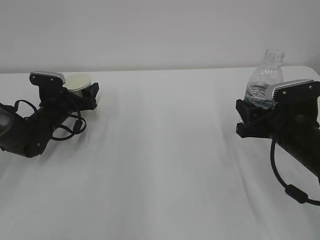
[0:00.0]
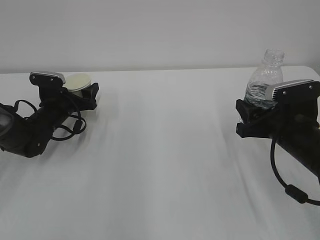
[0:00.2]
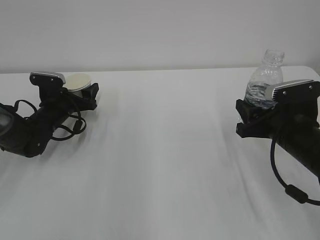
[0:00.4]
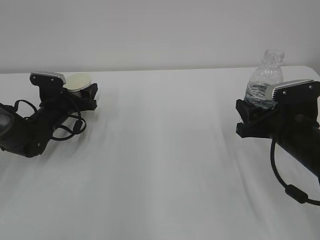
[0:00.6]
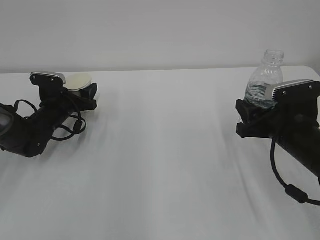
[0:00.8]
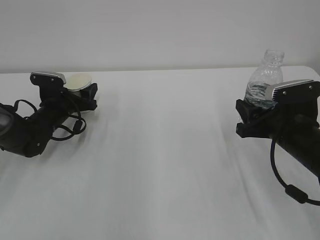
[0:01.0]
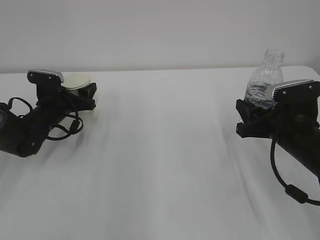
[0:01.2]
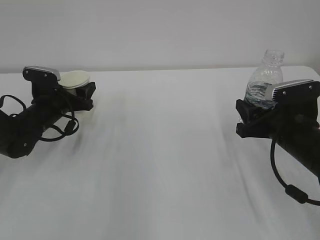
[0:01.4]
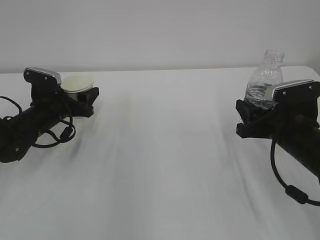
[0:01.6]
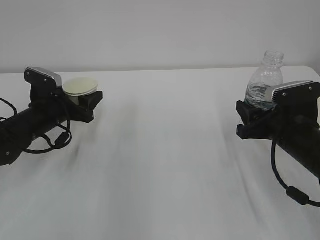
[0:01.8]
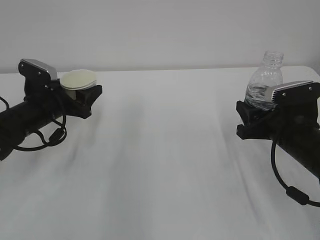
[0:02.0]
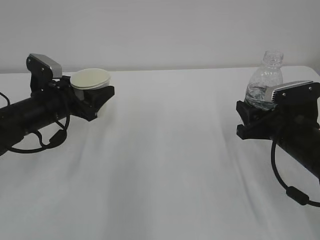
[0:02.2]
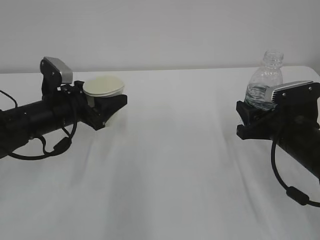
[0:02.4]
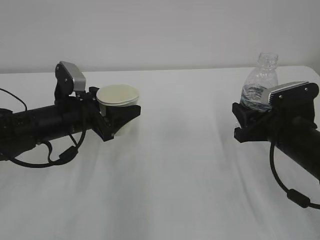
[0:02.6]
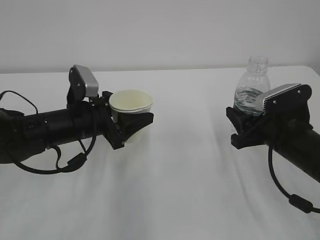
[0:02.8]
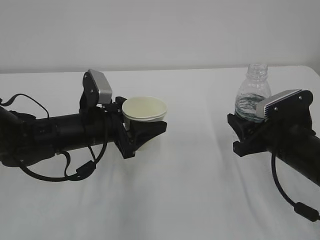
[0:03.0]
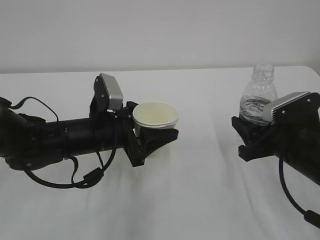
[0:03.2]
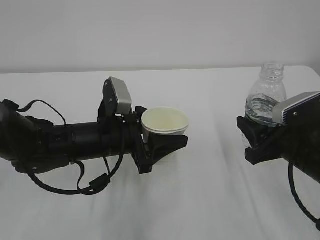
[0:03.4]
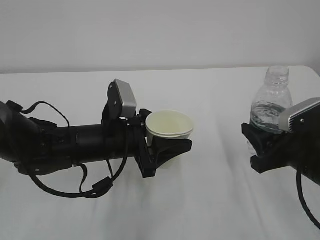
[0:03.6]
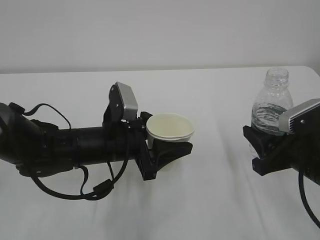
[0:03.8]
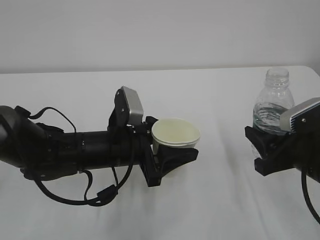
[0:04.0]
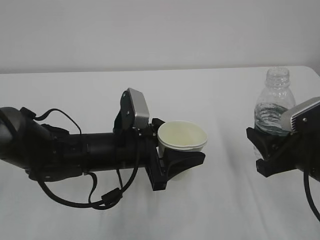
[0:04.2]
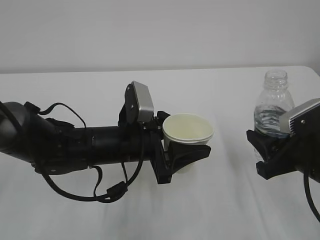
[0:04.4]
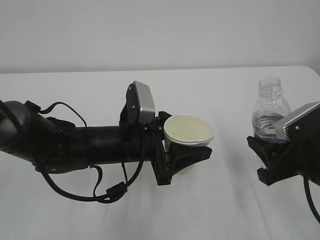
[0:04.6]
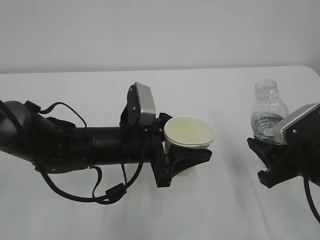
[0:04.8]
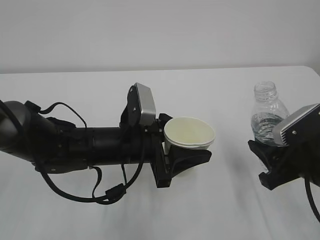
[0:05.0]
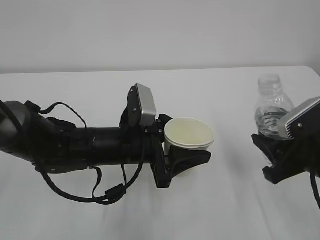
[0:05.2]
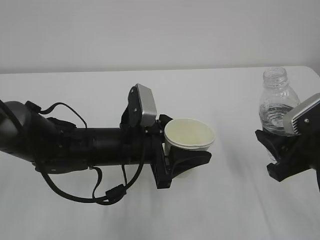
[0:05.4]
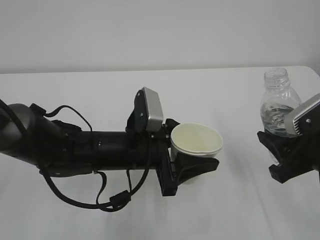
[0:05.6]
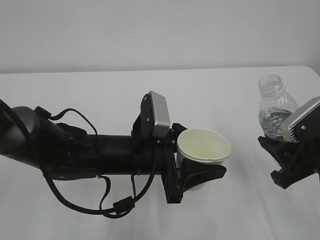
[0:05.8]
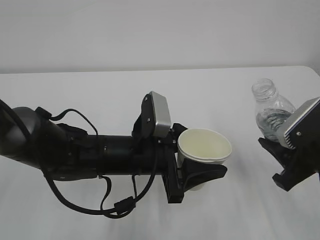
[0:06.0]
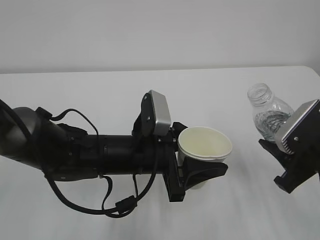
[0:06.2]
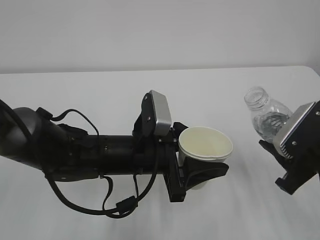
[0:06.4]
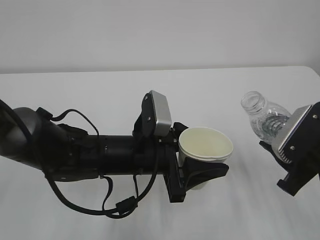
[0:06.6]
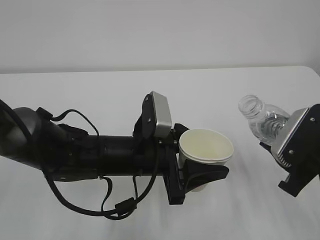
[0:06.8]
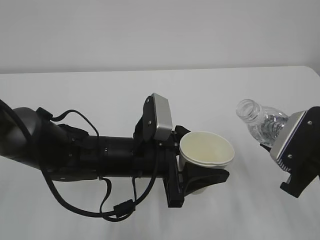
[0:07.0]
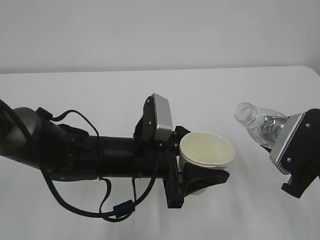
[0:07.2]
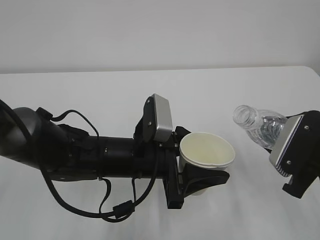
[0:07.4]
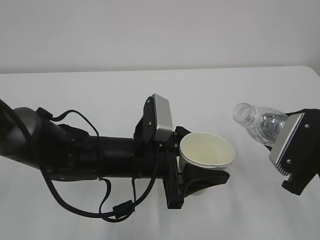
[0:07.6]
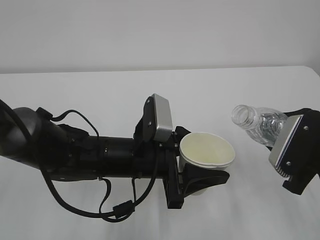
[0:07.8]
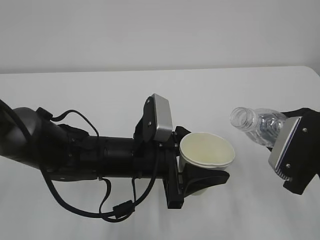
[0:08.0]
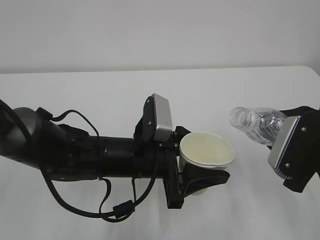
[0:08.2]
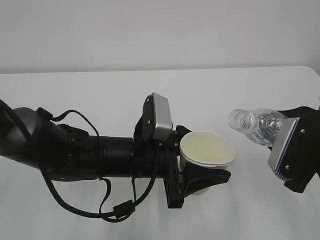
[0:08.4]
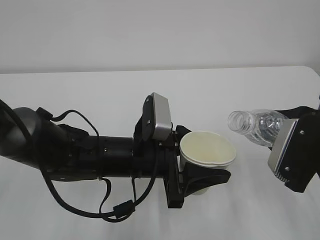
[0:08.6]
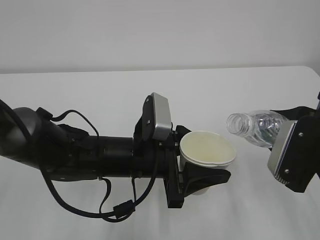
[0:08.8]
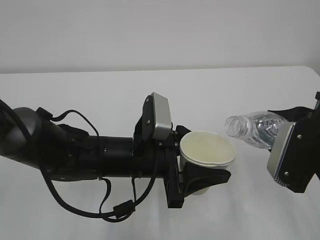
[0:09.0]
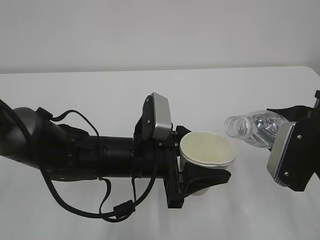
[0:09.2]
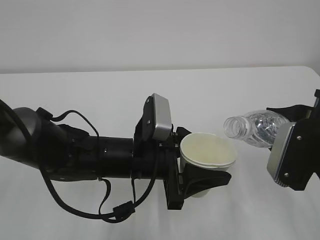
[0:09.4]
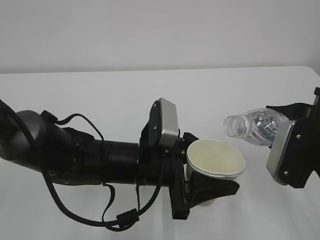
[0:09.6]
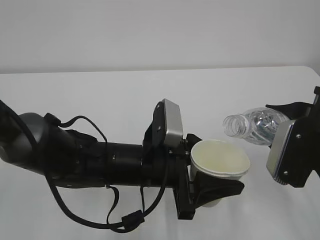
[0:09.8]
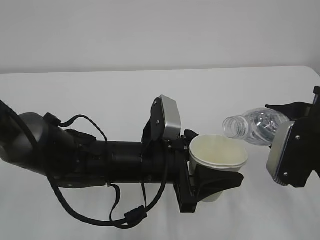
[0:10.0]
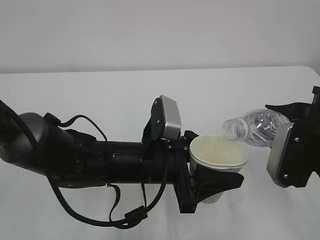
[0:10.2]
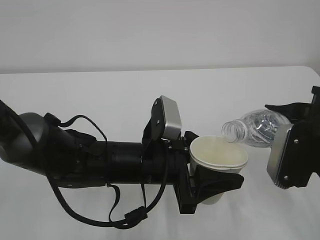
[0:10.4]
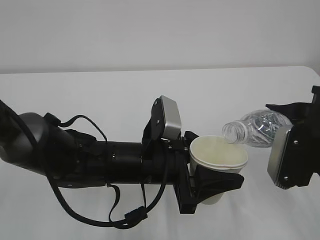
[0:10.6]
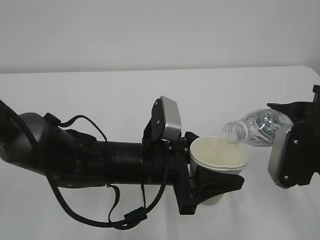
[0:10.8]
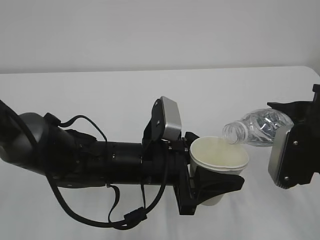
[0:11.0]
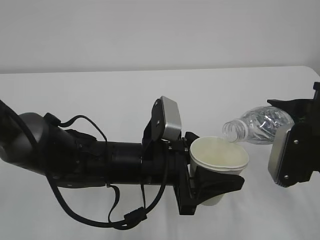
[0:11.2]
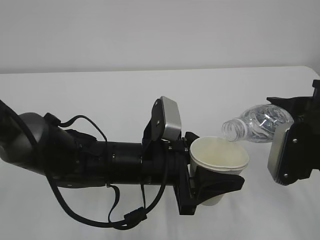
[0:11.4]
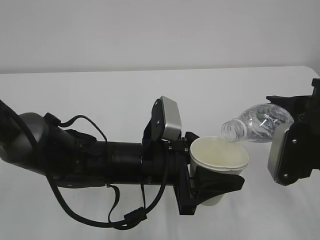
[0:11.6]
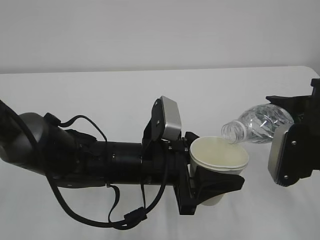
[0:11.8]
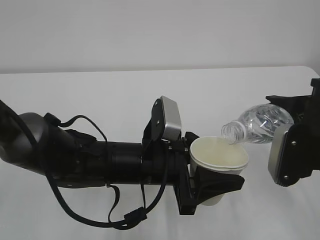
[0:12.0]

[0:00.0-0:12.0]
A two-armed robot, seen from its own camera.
0:00.0 to 0:01.6: The left gripper moves about 5 cm, and closes up.
0:01.6 to 0:03.0: The left gripper goes some 15 cm to the right and backward.
0:03.0 to 0:04.4: The right gripper moves backward, some 5 cm; the left gripper heads to the right, covering some 5 cm.
0:04.4 to 0:06.0: The grippers make only small movements.
0:07.6 to 0:09.0: The grippers stay close to where they were, moving slightly.
0:09.0 to 0:12.0: The grippers make only small movements.

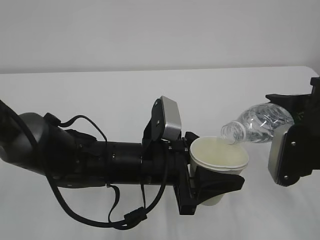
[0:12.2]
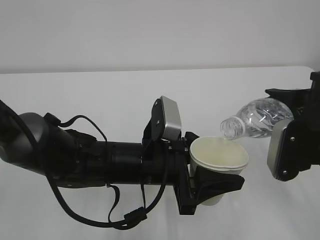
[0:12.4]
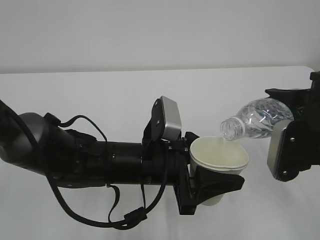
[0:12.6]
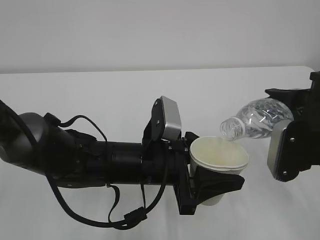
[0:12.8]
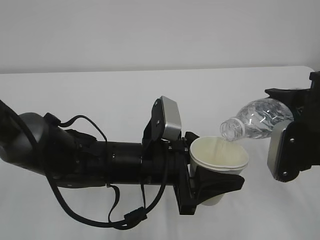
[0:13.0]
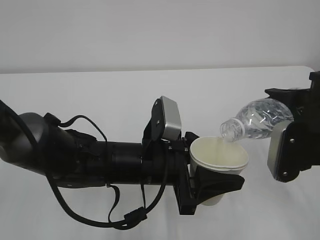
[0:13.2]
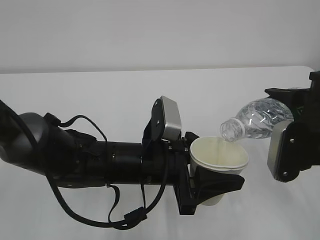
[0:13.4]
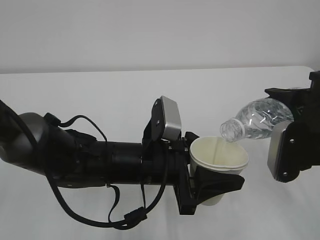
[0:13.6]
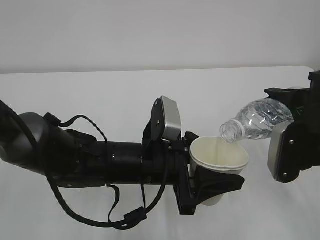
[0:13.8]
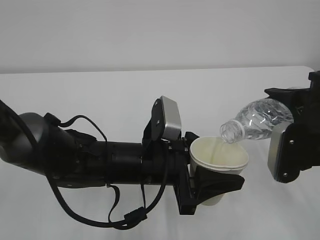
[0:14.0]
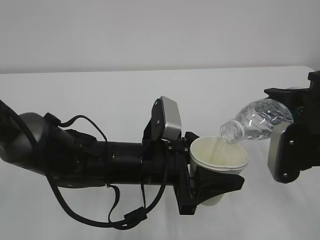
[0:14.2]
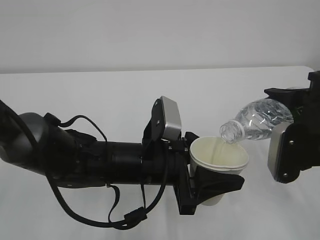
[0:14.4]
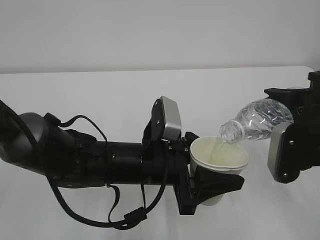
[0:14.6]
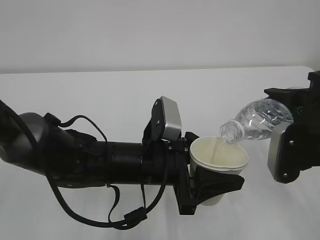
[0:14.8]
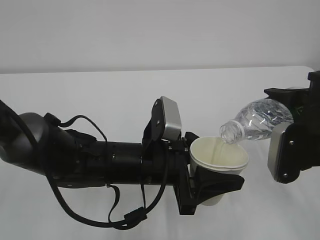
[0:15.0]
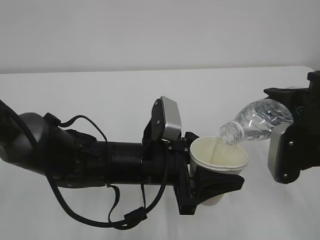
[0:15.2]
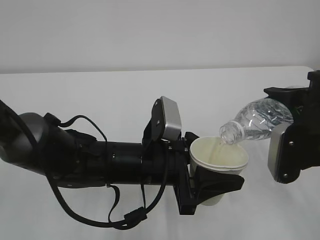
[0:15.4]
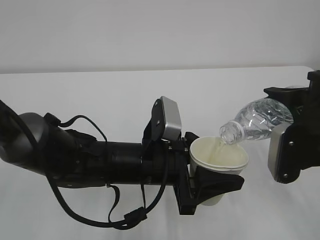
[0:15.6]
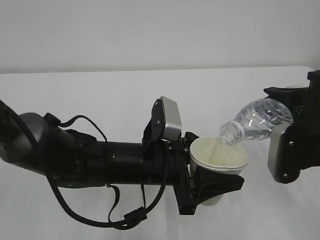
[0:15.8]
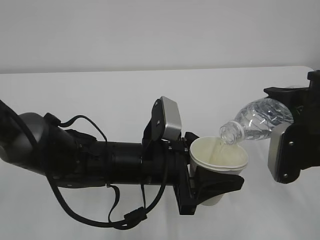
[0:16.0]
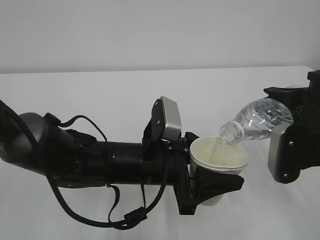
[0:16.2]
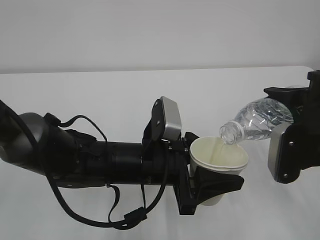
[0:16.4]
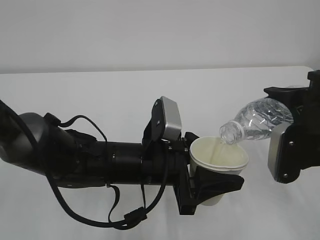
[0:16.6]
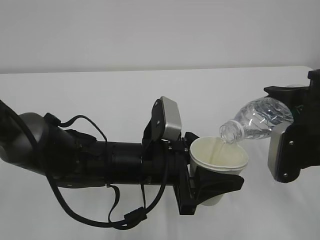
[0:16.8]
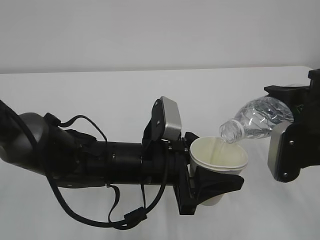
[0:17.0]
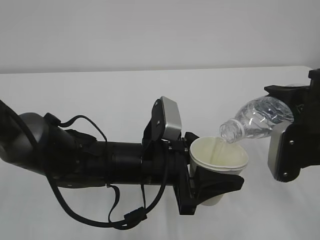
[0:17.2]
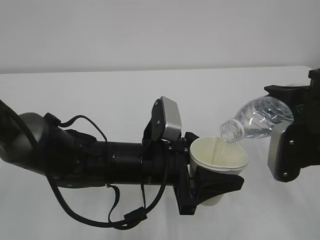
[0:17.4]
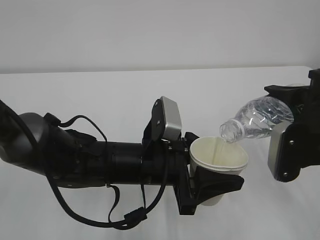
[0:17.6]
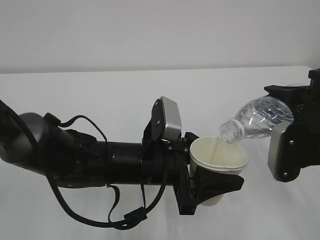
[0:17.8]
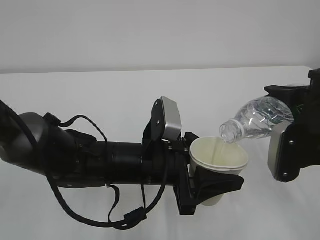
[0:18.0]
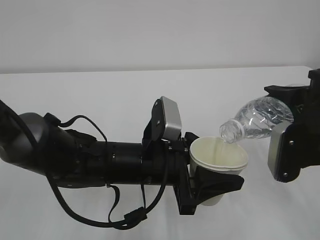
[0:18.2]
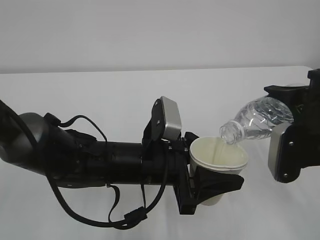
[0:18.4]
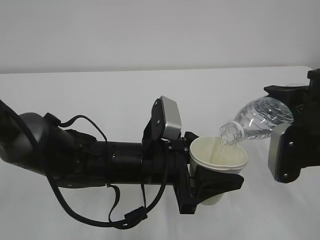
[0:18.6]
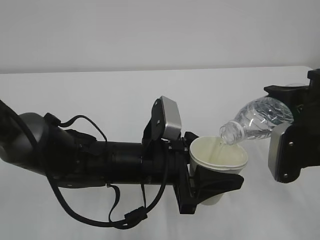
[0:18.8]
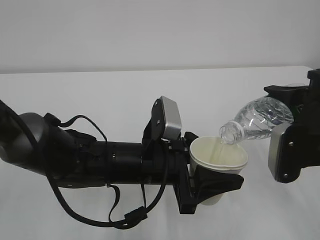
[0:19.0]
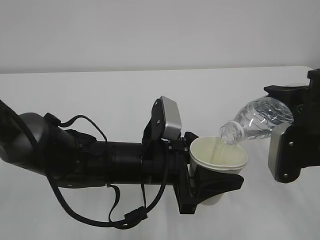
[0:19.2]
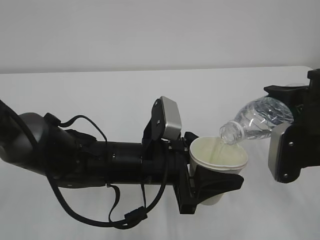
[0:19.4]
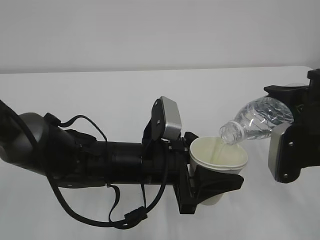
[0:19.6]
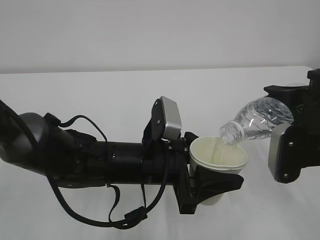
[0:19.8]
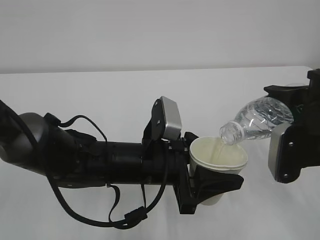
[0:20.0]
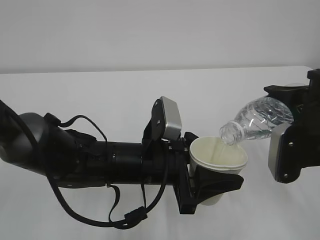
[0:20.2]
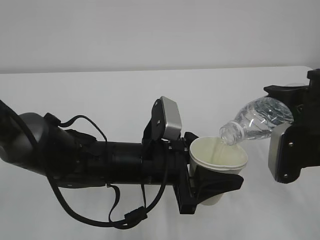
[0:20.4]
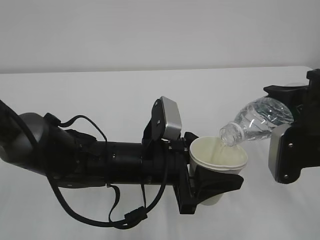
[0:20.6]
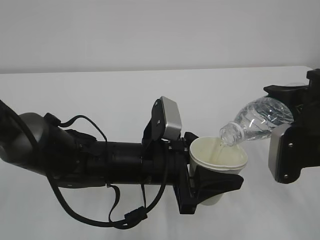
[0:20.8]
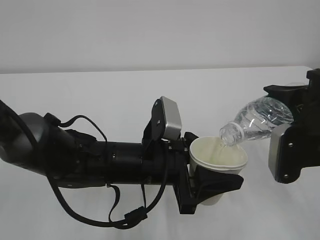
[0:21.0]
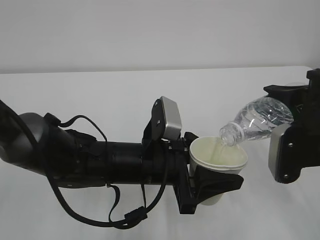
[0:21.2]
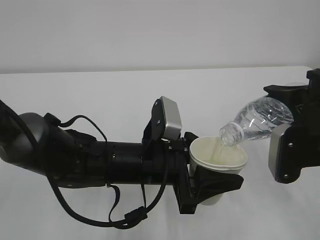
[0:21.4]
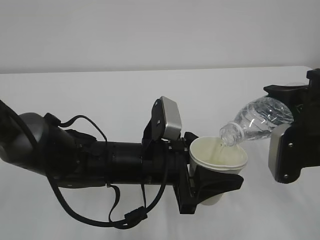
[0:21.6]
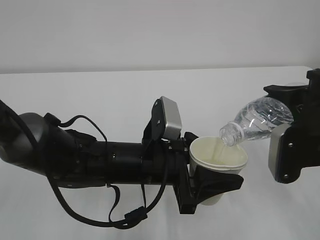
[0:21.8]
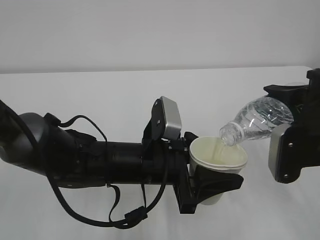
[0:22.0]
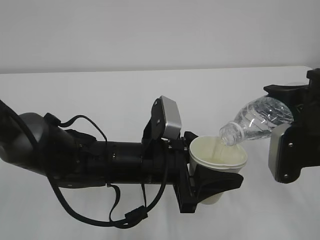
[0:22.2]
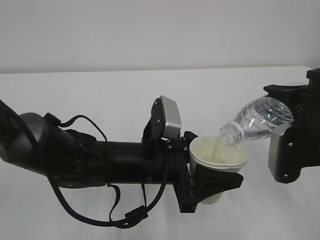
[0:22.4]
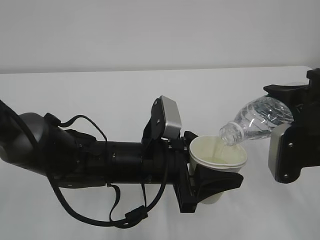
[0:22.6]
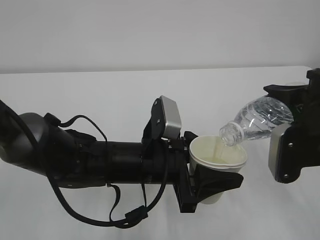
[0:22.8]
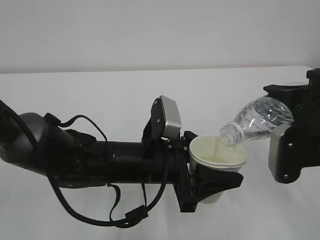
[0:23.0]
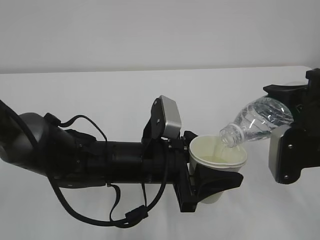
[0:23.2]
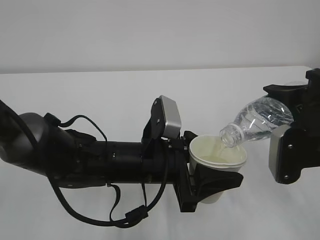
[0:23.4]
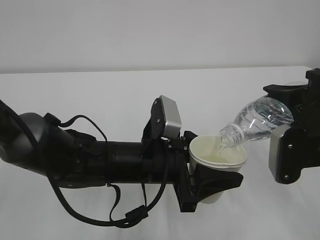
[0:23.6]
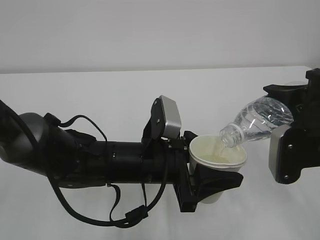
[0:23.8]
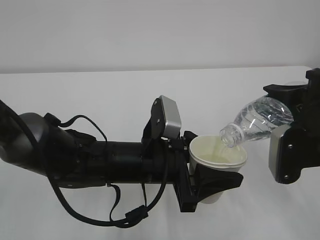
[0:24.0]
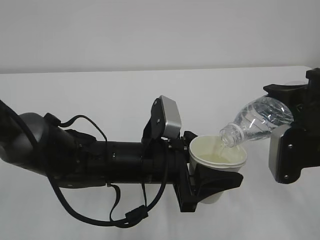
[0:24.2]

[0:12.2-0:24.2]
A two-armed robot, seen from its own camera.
0:12.2 to 0:15.2: Both grippers stay put.
0:15.2 to 0:24.2: The two grippers keep their place.
